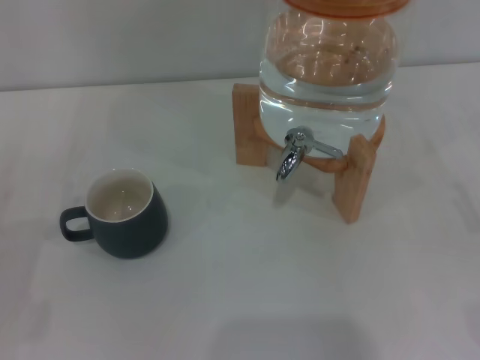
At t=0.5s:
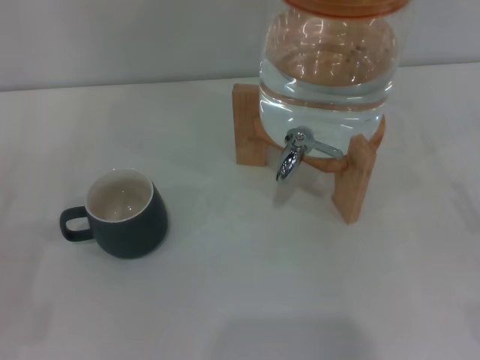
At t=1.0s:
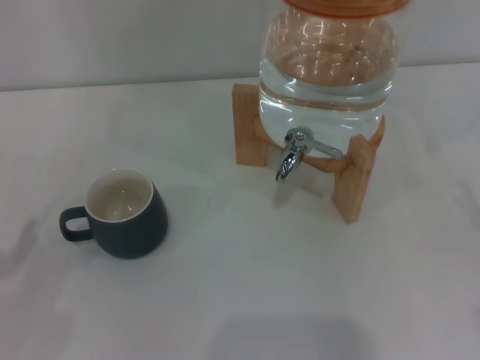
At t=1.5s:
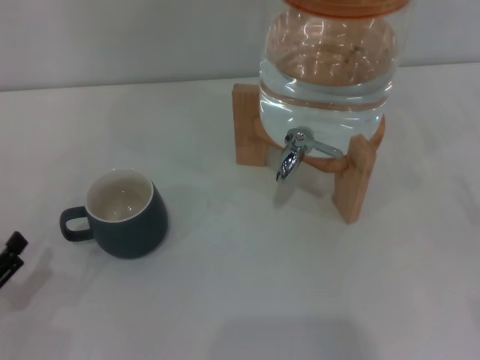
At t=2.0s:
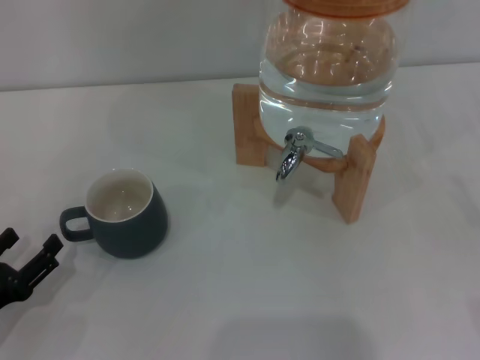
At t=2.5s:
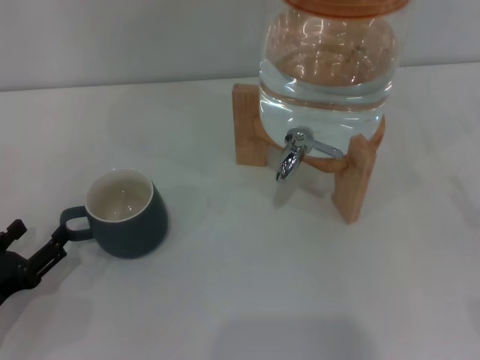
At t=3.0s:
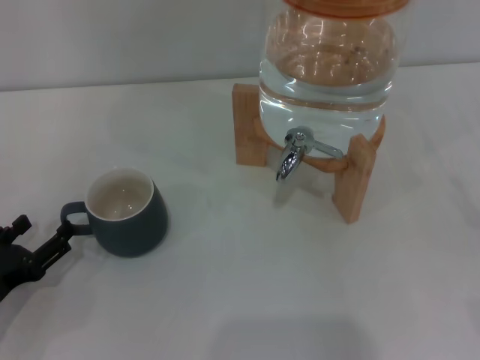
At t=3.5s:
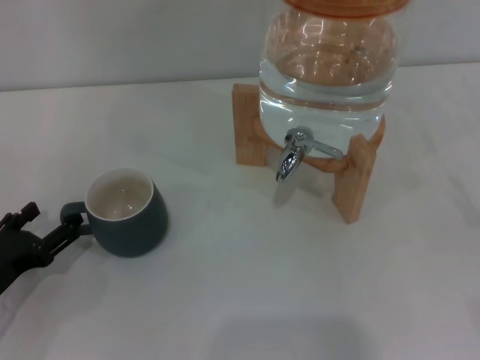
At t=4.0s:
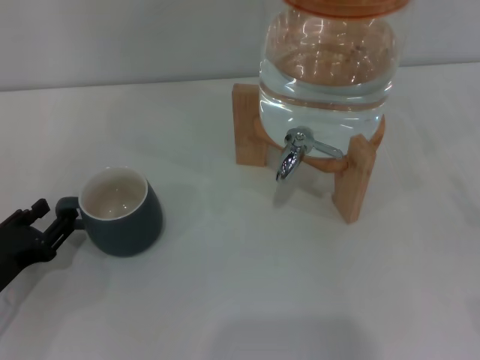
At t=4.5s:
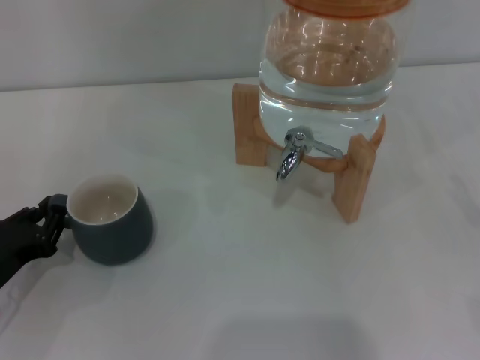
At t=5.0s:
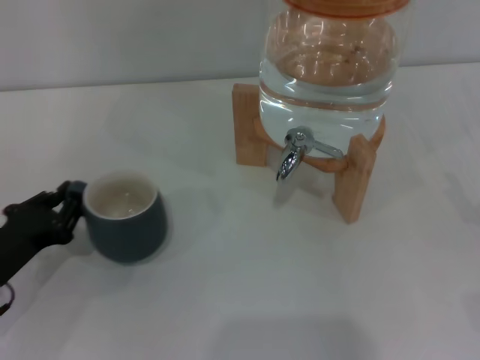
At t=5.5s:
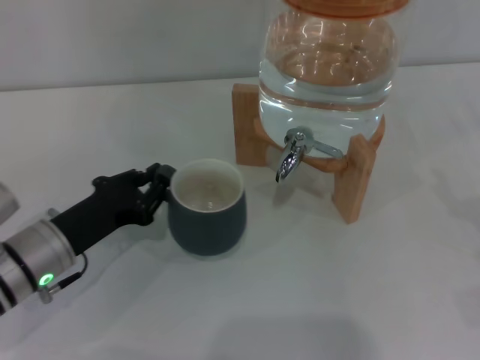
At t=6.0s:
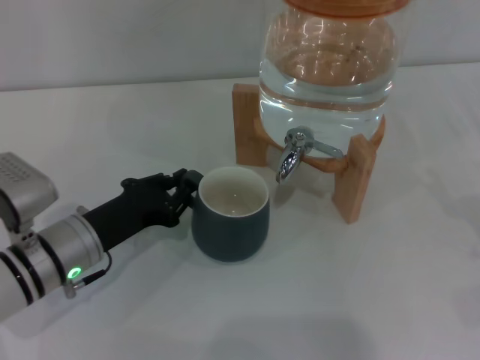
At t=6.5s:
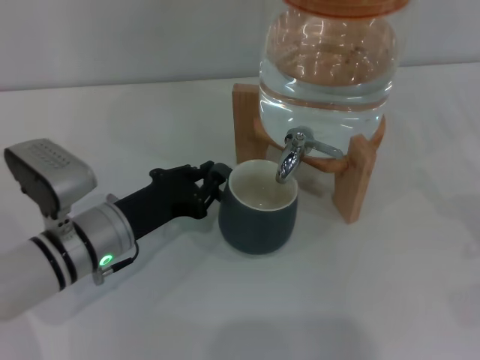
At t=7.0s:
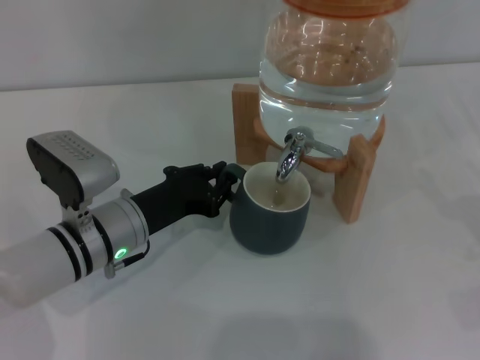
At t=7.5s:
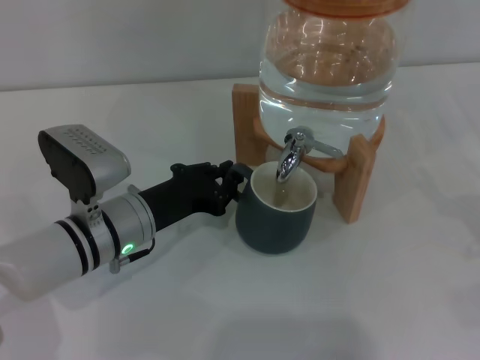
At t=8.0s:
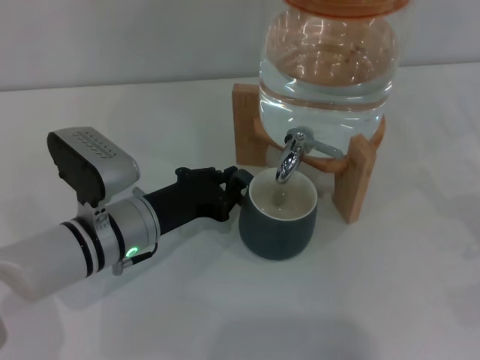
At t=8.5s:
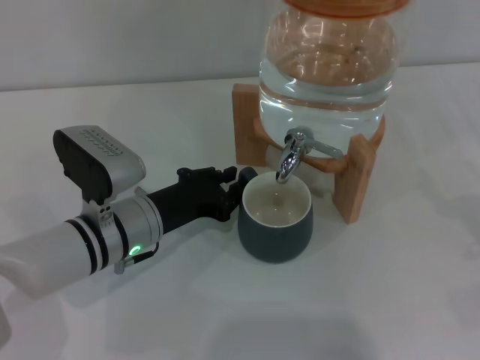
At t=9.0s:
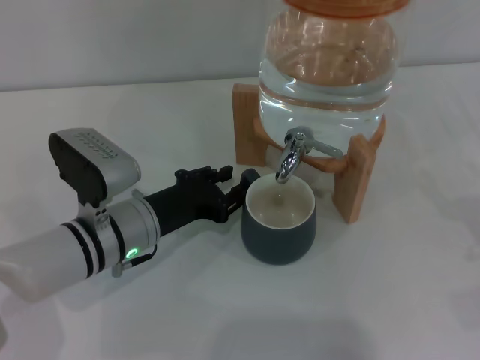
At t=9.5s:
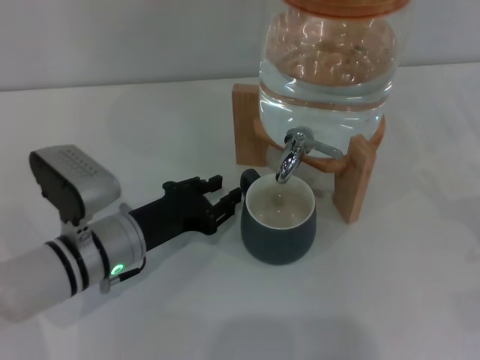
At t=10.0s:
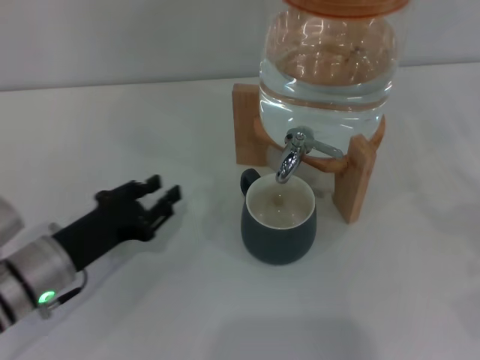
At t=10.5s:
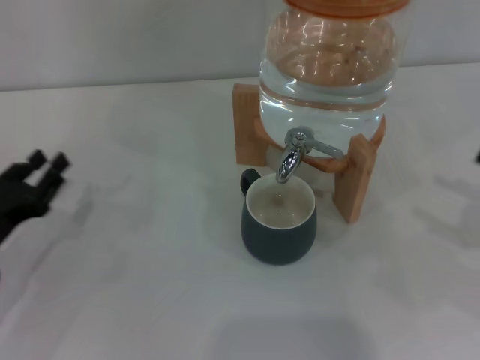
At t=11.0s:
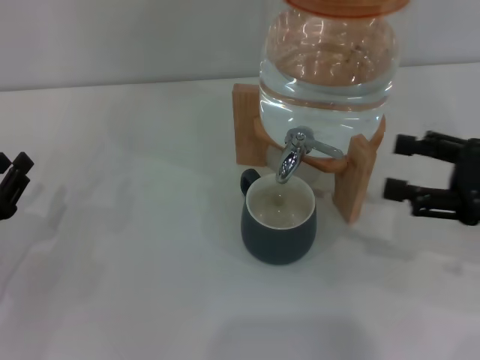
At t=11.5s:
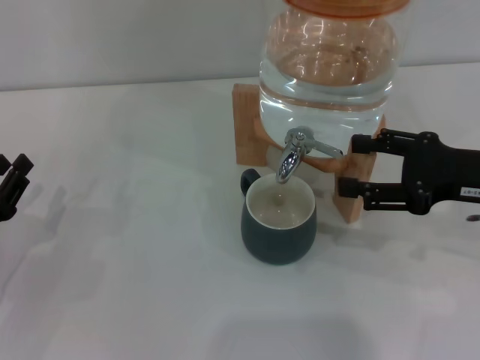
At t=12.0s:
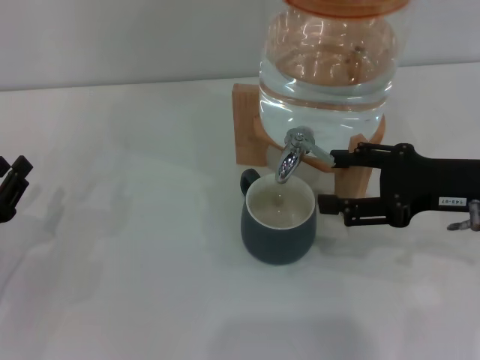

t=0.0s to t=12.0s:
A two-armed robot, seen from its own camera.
Task of the whole recording: the left gripper pick up the black cup and place it horizontally under the faucet, the right gripper turn on the faucet to fill the cup, and then turn off the faucet.
Step, t=0.0s to t=9.5s: Move the cup beneath the water dispenser nozzle with the left gripper.
t=0.0s to t=2.0s: The left gripper moves approximately 5 cm.
t=2.0s to t=4.0s: The left gripper is displaced forward by roughly 5 cm.
t=4.0s to t=6.0s: The left gripper is displaced to the right and forward by approximately 10 cm, and closes up.
t=6.0s to t=8.0s: The left gripper goes about 5 cm to the right.
t=8.0s to t=10.0s: The left gripper is displaced to the left by some 10 cm.
t=10.0s to t=12.0s: The left gripper is displaced to the left by approximately 10 cm; the right gripper heads to the left, forward and upward, covering about 20 cm.

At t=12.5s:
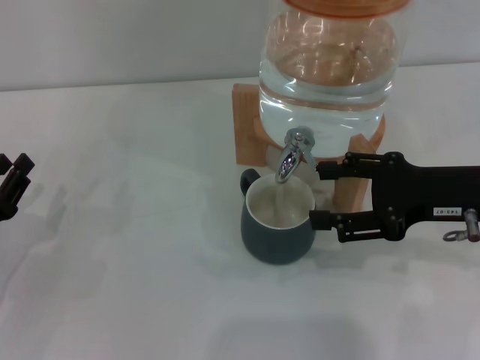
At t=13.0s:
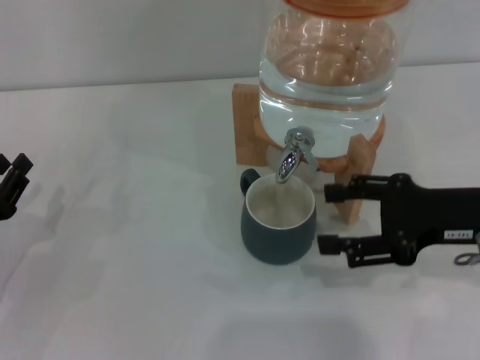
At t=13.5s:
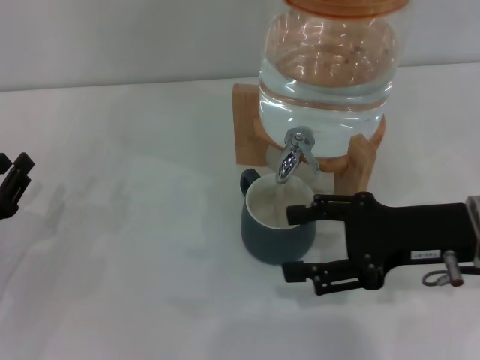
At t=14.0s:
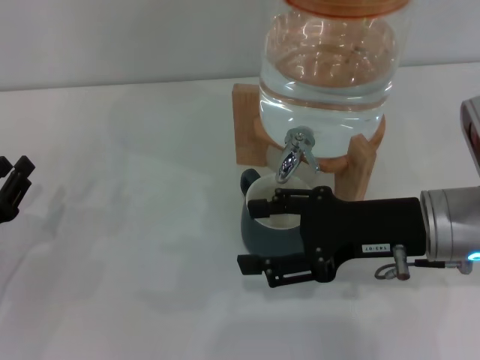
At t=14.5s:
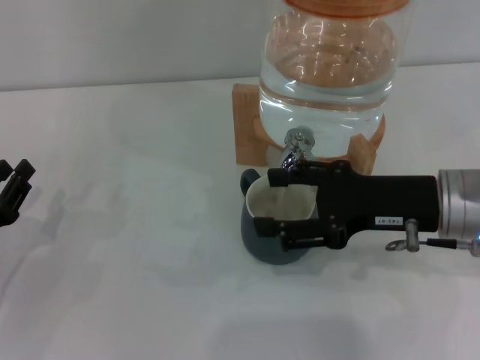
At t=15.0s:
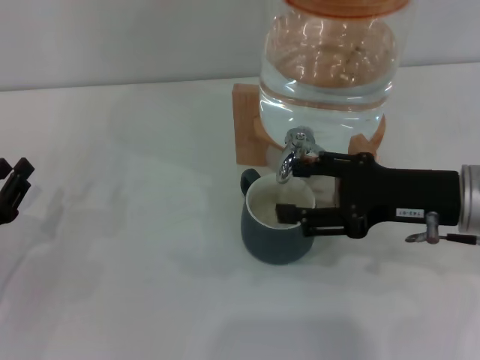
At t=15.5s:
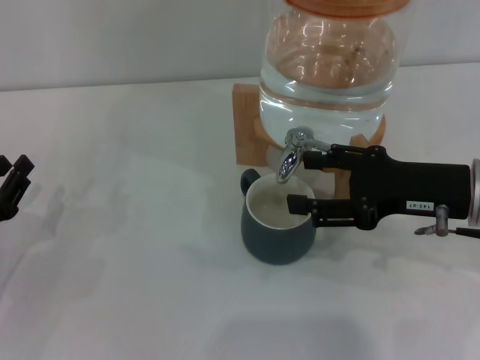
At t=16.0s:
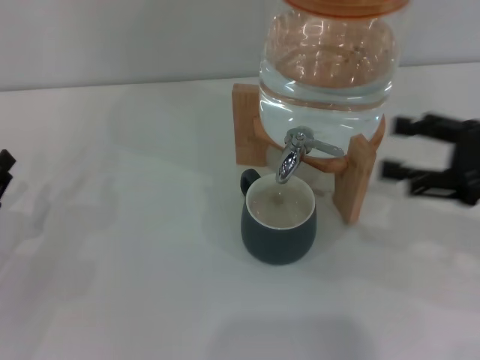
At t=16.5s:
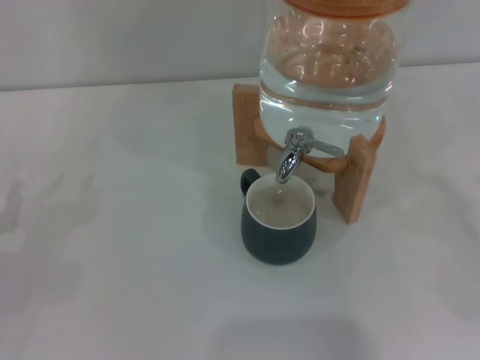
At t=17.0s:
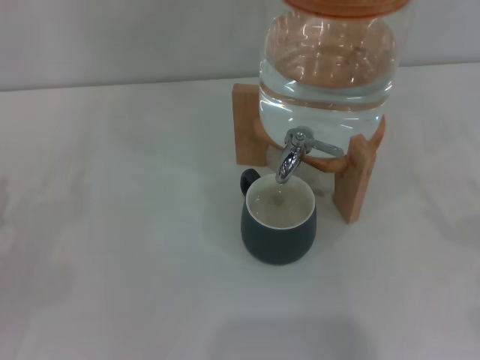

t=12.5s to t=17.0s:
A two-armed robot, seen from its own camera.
Task of the whole recording: the left gripper pick up the black cup and place it horizontally under the faucet, the right gripper turn on the faucet to fill the cup, and then turn off the faucet.
Step, t=13.0s to t=15.5s: Close the dispenser valve with the right gripper.
t=14.5s to t=17.0s: The right gripper is displaced to the right and backward by roughly 25 cm.
